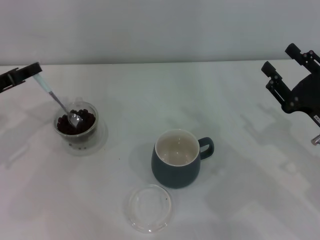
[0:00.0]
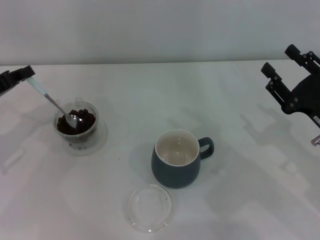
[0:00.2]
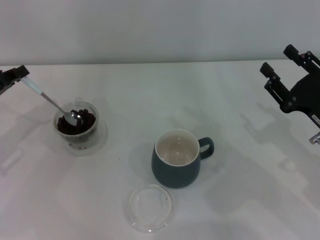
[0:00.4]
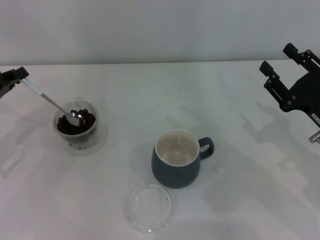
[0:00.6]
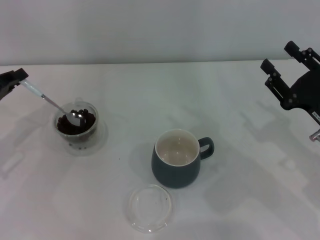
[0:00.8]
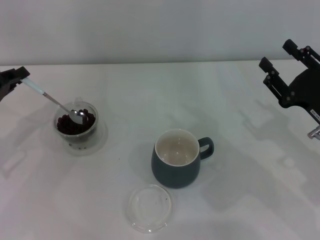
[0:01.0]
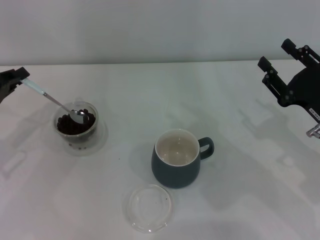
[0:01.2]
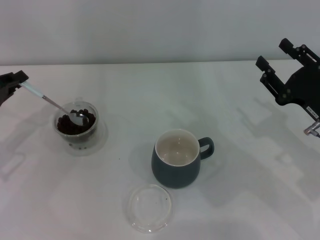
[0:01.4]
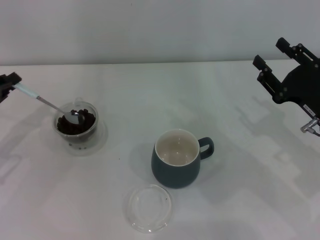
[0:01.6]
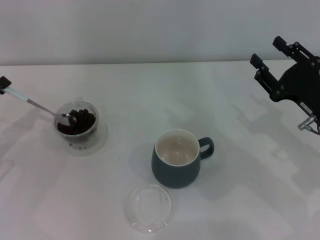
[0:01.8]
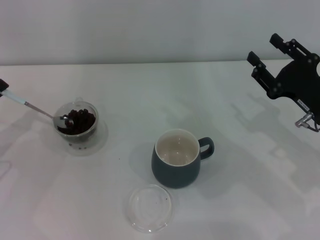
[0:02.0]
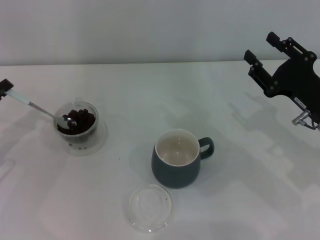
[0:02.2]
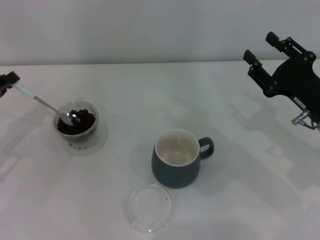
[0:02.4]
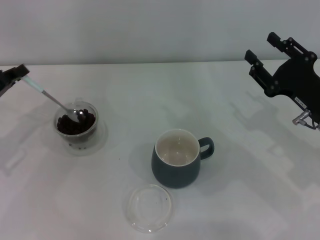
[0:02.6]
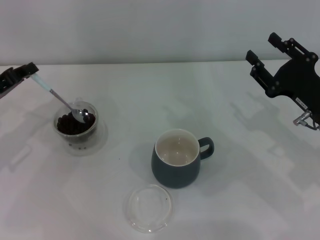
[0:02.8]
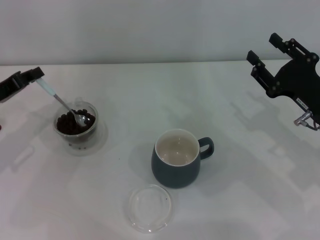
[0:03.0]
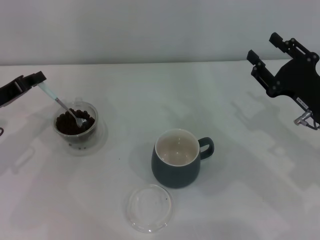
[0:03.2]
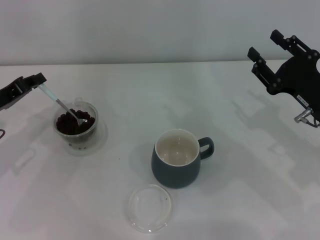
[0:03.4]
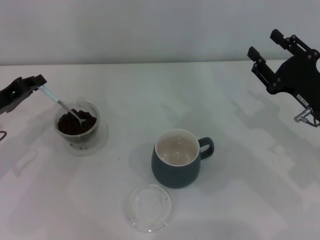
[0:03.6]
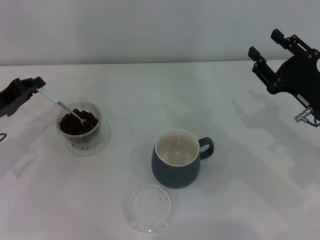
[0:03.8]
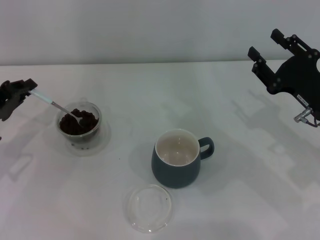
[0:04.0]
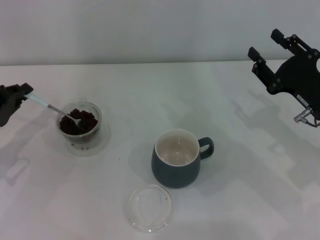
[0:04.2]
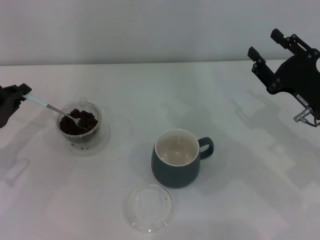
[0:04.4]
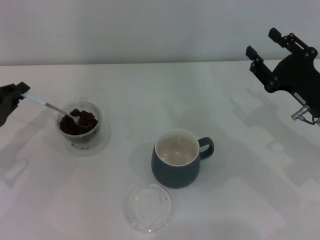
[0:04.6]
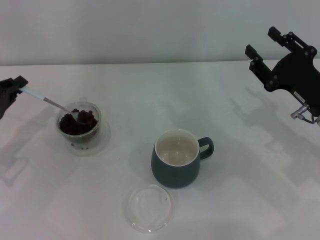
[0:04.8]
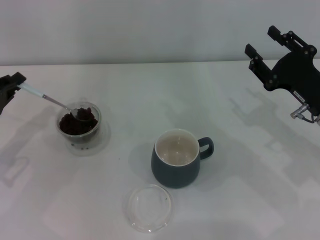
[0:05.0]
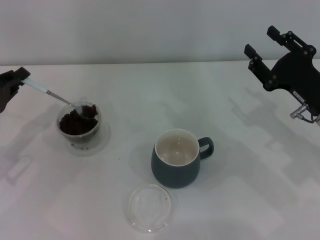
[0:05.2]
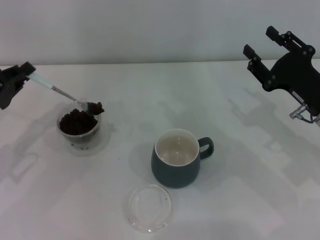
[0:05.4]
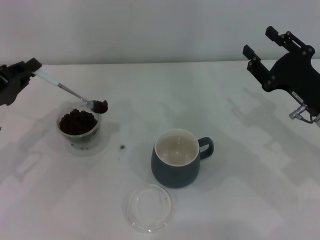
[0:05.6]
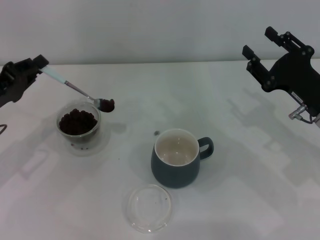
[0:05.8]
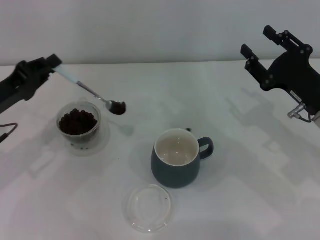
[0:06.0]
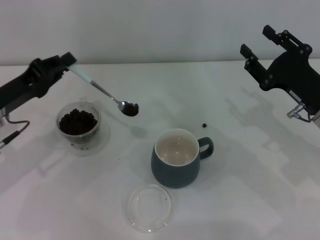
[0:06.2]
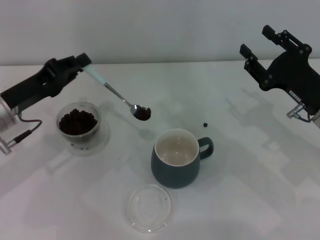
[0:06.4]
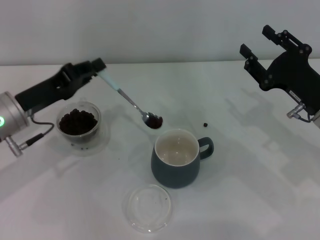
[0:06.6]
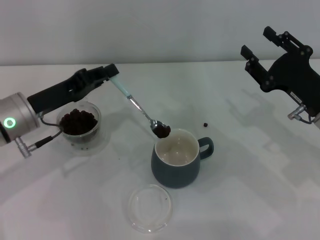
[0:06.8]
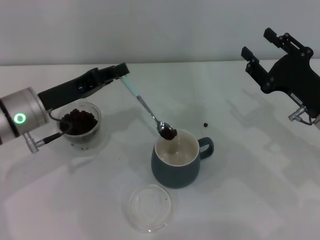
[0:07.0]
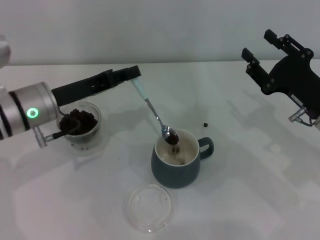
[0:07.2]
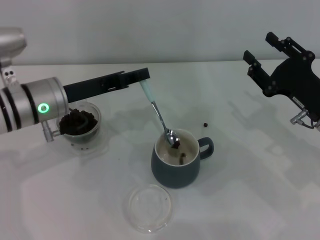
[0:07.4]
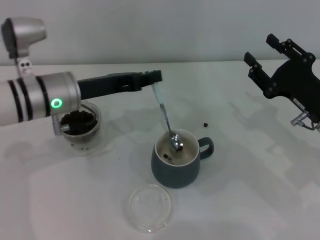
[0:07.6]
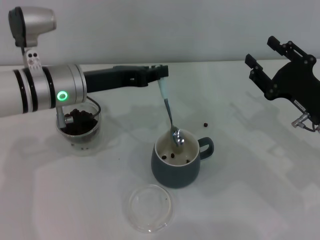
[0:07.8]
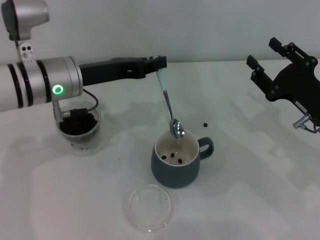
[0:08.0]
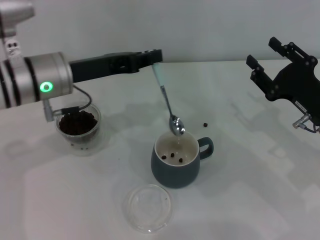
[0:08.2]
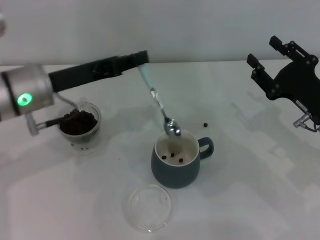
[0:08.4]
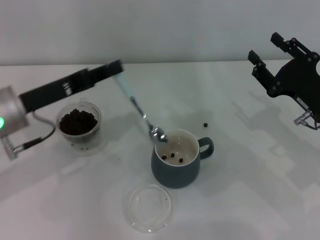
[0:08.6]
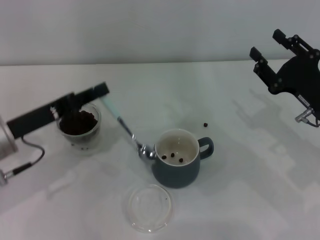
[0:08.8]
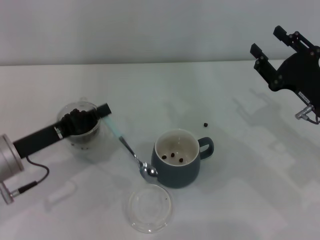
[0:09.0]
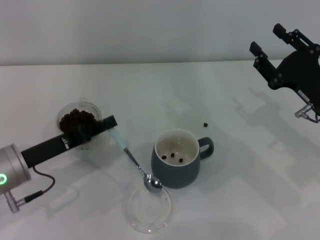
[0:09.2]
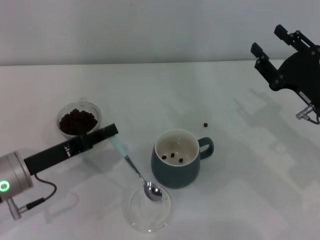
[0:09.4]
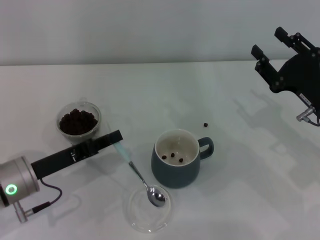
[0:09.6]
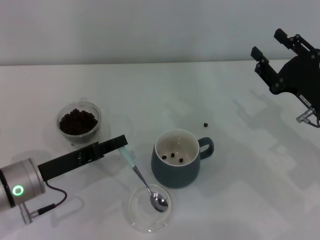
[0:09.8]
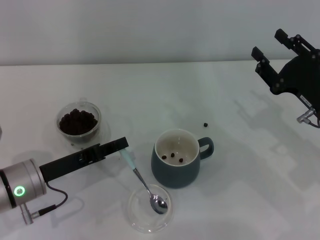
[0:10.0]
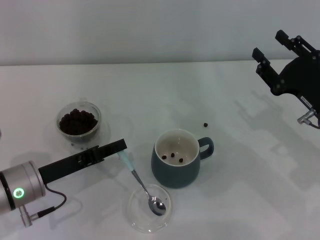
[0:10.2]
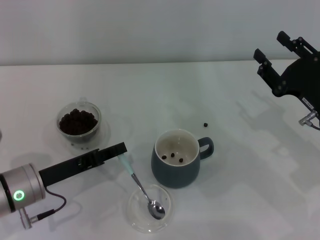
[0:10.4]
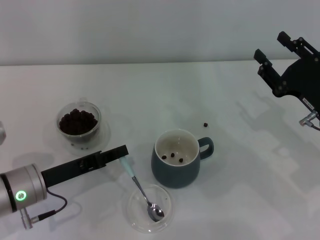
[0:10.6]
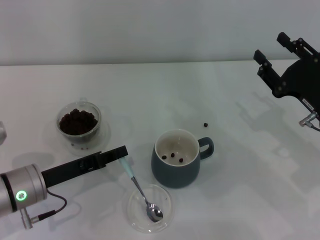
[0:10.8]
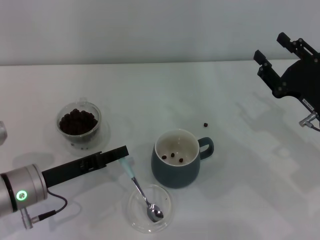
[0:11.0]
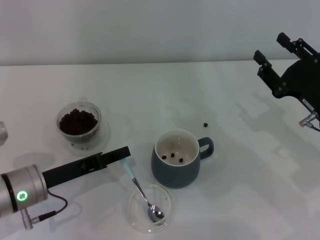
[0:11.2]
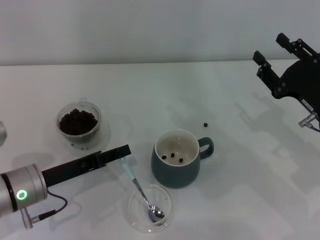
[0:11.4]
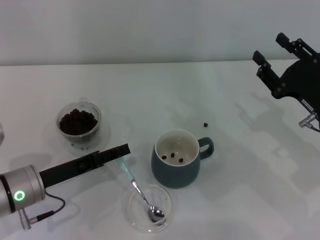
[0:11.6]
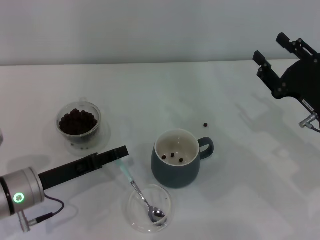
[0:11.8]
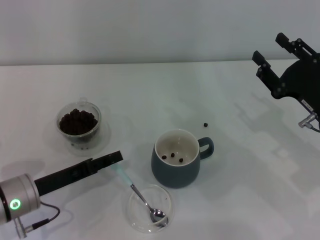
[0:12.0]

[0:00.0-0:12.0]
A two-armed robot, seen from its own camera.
Task of the whole recording: Use a blue spoon to take out the coffee beans from the glass and pour them into the gray cup.
Step, 0:00.0 to 0:08.4: Scoop a spoonful of beans into the cup with the right gripper.
0:01.6 to 0:03.0: The grippers move only a little.
0:04.4 to 0:06.0: There are only small adjustments of the grippers.
0:06.0 to 0:07.6: The left gripper travels to the right by approximately 10 cm.
0:07.6 to 0:09.0: The left gripper shifts approximately 10 cm backward and to the left.
0:09.0 to 0:10.4: The grippers stay close to where they were, moving slightly.
0:10.4 to 0:12.0: The left gripper opens up.

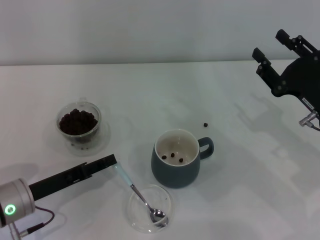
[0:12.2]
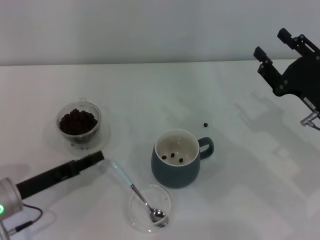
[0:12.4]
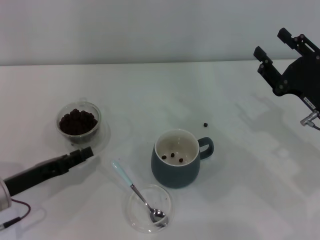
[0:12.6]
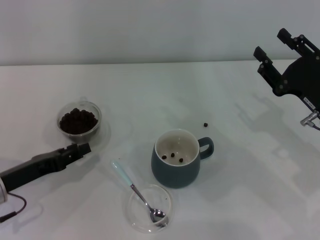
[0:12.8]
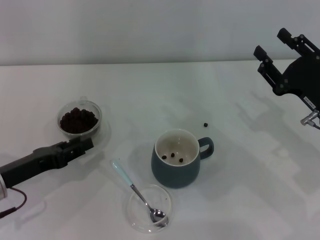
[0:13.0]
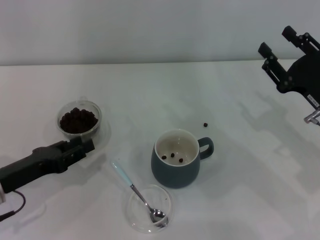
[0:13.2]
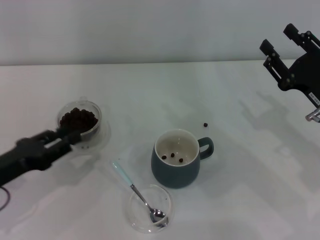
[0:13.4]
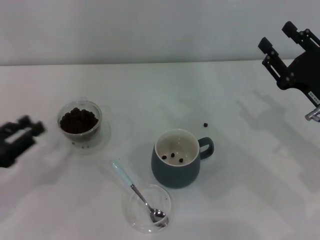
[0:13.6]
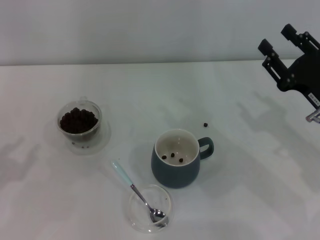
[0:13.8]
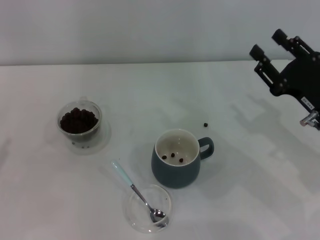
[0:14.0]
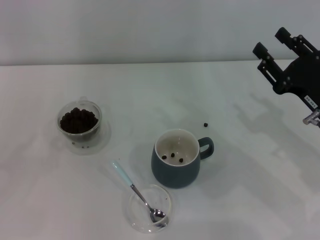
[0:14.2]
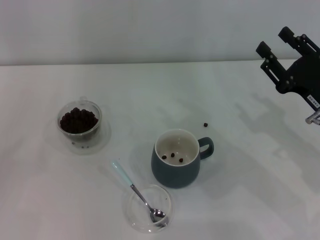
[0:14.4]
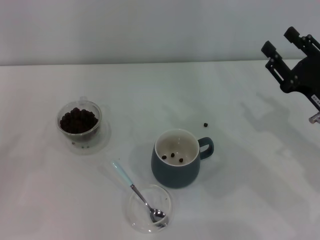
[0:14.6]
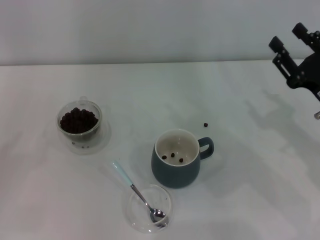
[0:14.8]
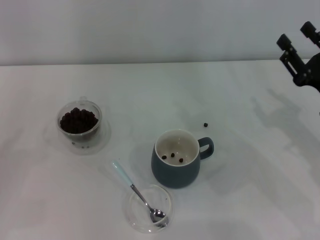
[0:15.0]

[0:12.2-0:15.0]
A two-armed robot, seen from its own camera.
Task of the whole recording: Use a blue spoon to take out the coffee beans from the glass and pour them into the gray cup.
0:12.2 to 0:13.6: The left gripper shifts some 10 cm to the left.
0:13.6 to 0:15.0: The left gripper heads to the left, covering some 10 cm.
